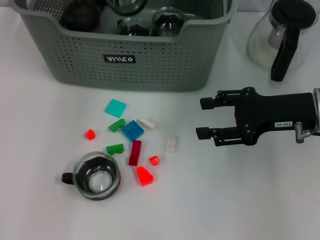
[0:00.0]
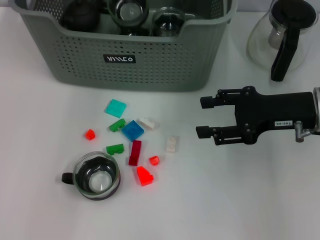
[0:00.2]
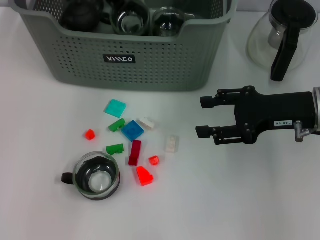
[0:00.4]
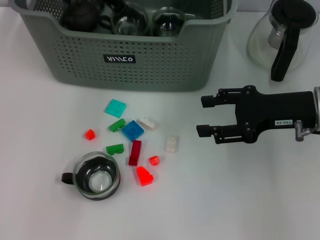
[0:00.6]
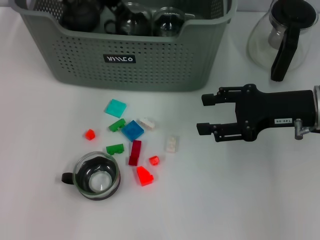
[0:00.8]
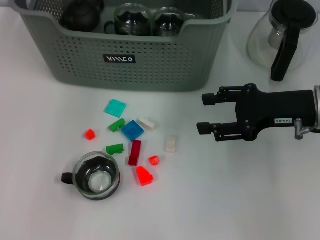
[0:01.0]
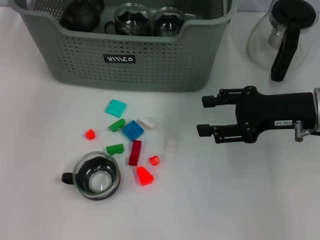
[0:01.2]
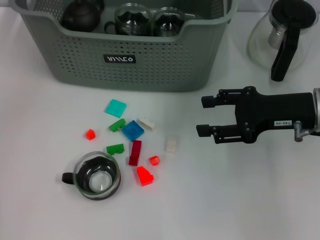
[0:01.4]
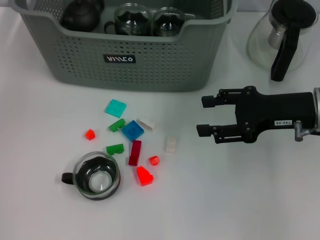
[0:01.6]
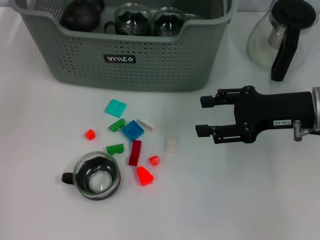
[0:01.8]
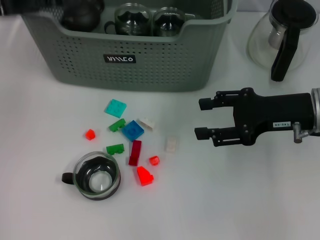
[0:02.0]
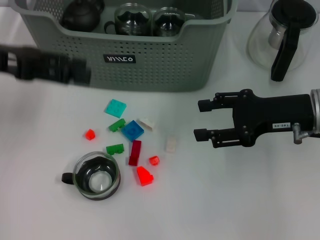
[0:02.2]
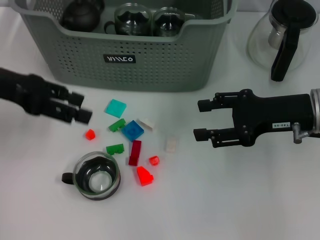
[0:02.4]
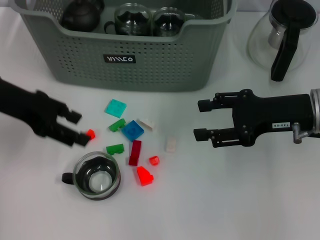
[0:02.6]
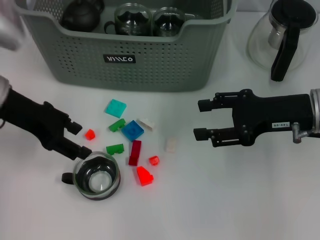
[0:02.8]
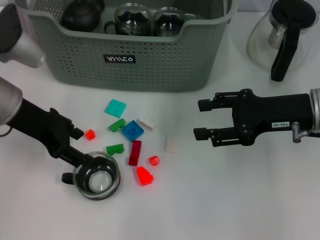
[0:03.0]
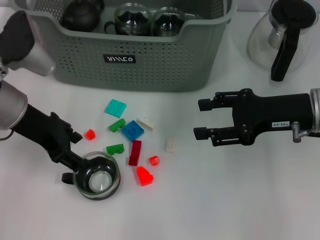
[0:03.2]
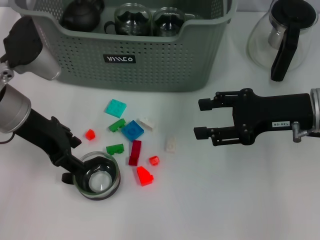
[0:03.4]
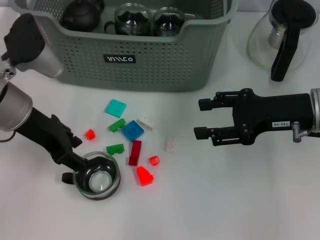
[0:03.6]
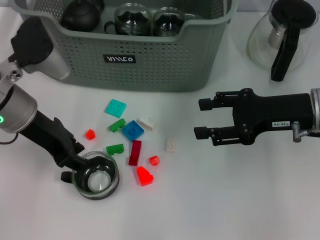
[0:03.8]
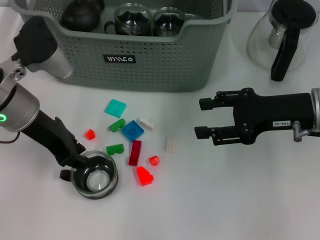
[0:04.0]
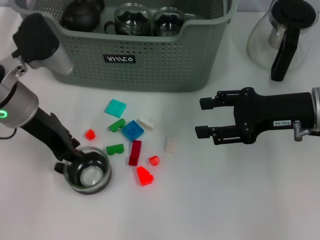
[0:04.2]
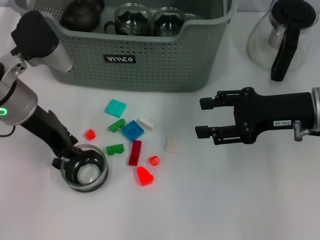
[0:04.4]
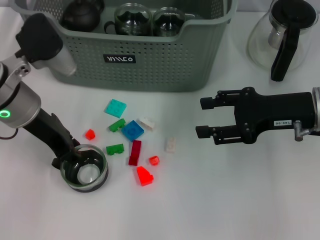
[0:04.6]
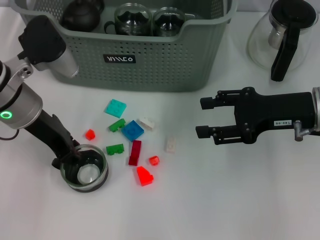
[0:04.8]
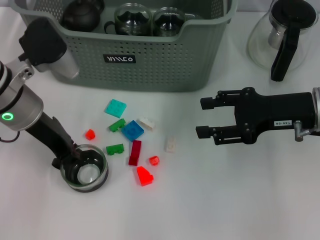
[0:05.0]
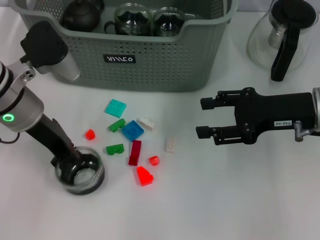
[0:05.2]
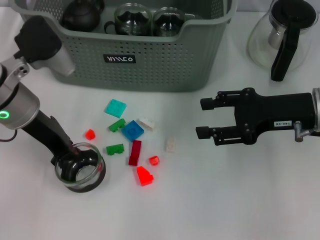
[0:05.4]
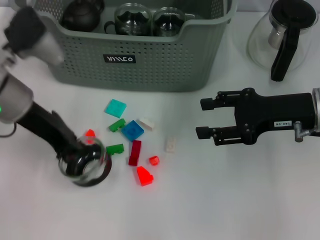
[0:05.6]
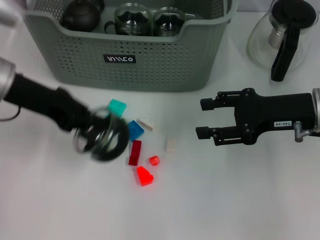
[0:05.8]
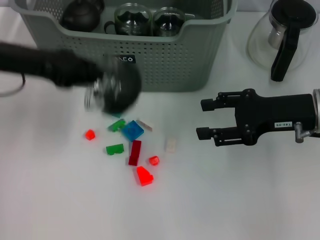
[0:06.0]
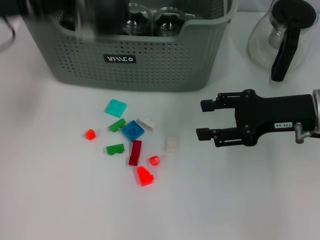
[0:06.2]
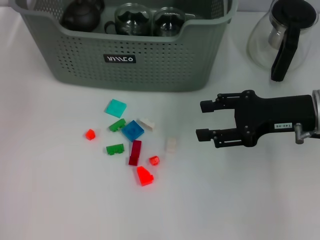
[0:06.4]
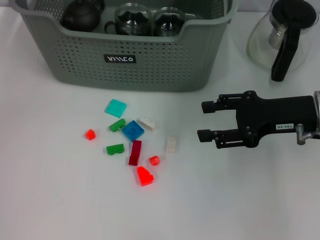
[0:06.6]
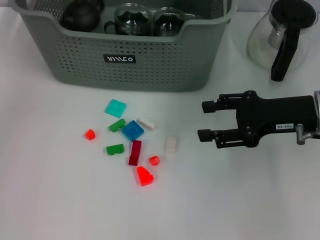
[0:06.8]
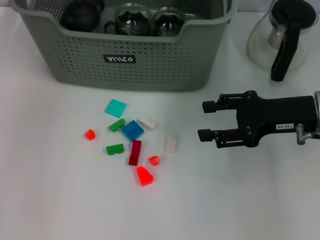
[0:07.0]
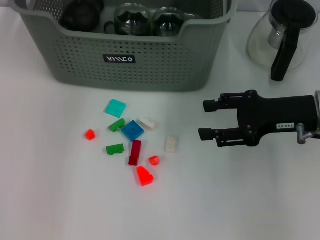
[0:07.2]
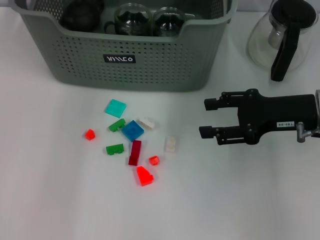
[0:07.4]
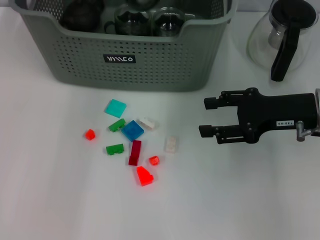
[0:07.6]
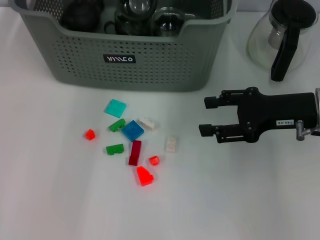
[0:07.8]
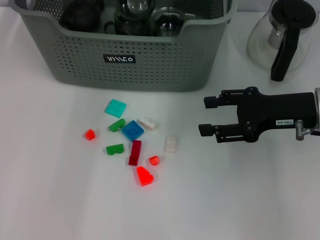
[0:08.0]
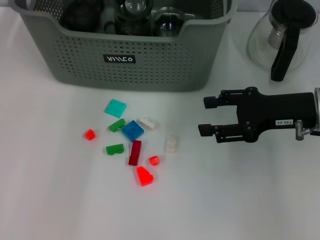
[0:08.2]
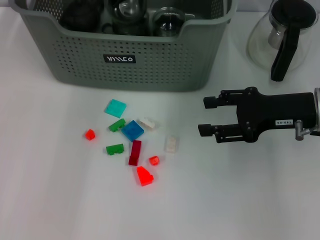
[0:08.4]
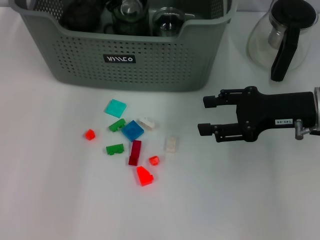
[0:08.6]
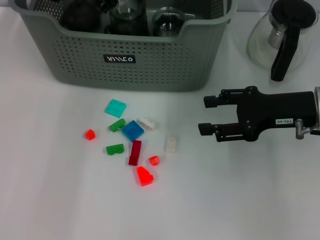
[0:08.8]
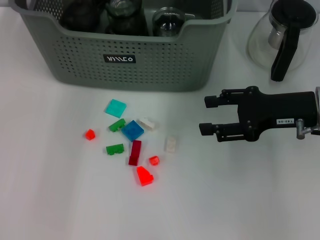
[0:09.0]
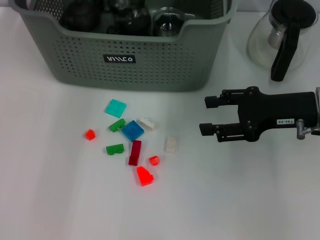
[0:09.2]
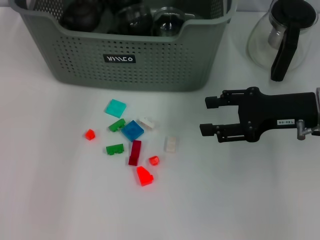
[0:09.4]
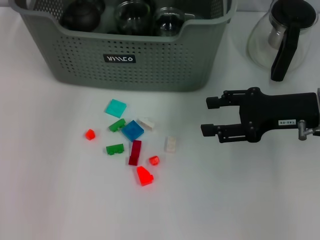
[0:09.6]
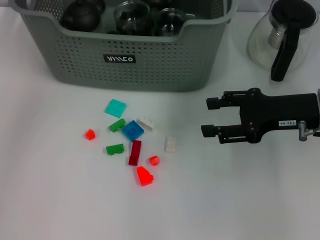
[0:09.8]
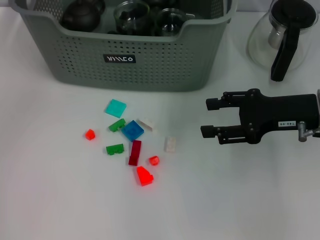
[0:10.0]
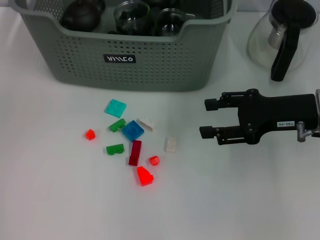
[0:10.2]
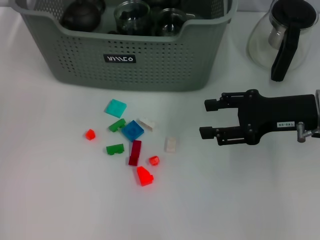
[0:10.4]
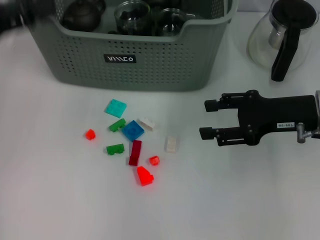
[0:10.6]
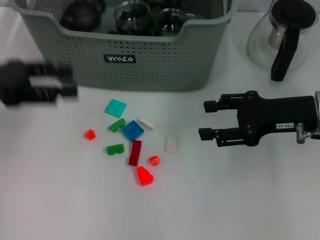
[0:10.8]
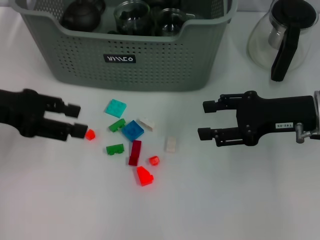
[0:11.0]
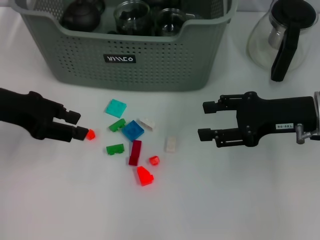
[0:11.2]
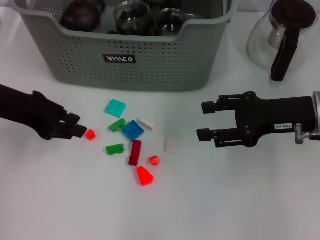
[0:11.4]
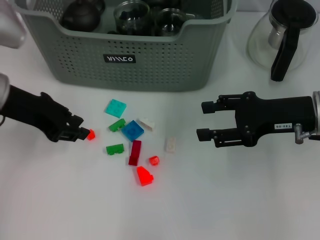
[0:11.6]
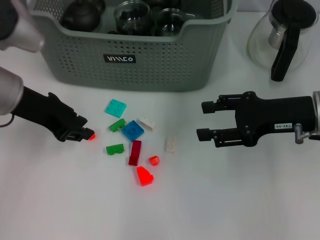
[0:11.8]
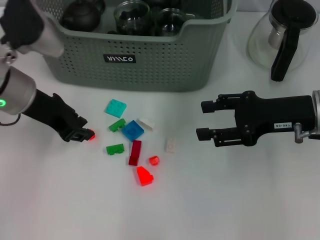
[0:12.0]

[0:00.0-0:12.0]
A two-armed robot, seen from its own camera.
Task of the whole recording: pick up the teacup on the table and place it into the storage bin, pick up the block on the table and place it into the storage bin.
Step, 0:01.2 to 0:05.2: Grasp the cup with left gripper.
Step, 0:05.4 to 0:09.6: Place the cup in the storage box with left gripper.
0:00.0 to 0:01.6: The left gripper travels to the left and backward by about 15 cm, and opens.
0:01.6 to 0:03.0: The left gripper moves downward and backward, approximately 10 cm.
0:03.0 to 0:04.4: The left gripper closes.
0:04.4 to 0:06.0: The left gripper changes place by some 5 cm.
0:06.0 to 0:07.6: The left gripper goes approximately 20 cm forward and to the right.
0:07.6 to 0:09.0: The grippers stay close to where they were, moving slightly.
0:09.0 to 0:10.4: The left gripper heads to the left and backward, covering some 20 cm, and opens.
0:10.4 to 0:12.0: The left gripper travels to the right and downward by approximately 10 cm, and closes up.

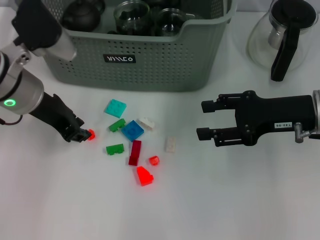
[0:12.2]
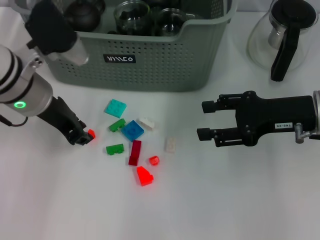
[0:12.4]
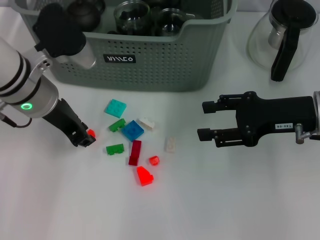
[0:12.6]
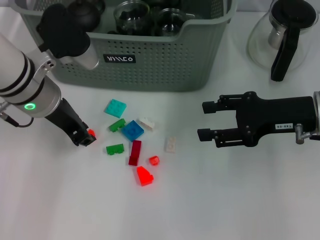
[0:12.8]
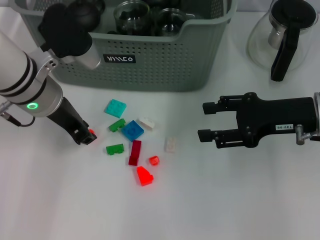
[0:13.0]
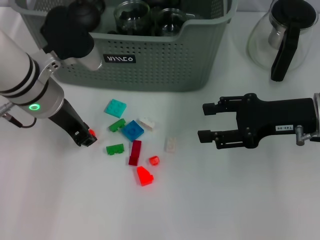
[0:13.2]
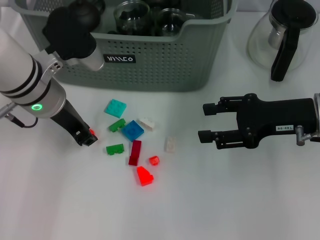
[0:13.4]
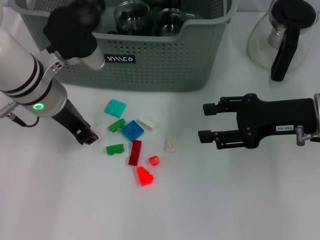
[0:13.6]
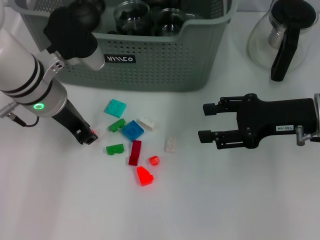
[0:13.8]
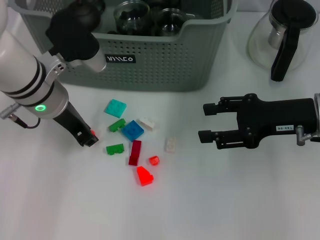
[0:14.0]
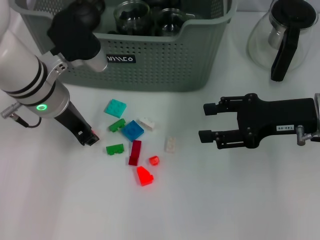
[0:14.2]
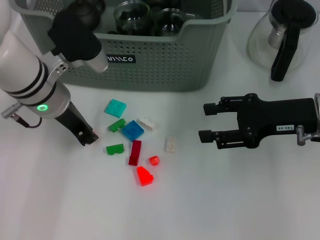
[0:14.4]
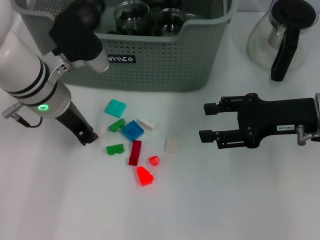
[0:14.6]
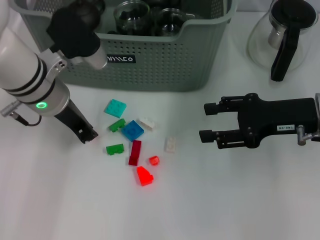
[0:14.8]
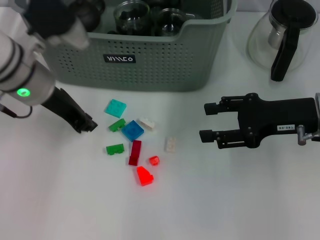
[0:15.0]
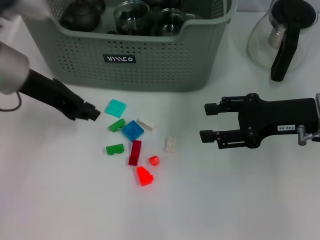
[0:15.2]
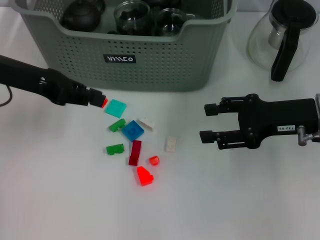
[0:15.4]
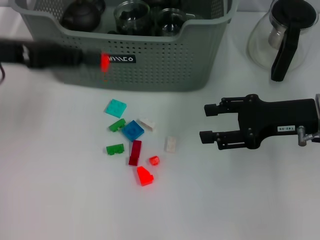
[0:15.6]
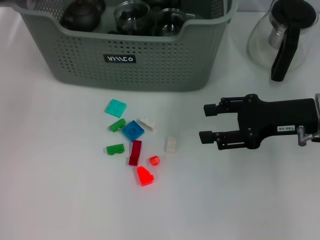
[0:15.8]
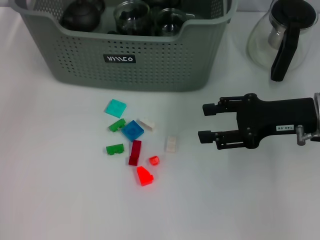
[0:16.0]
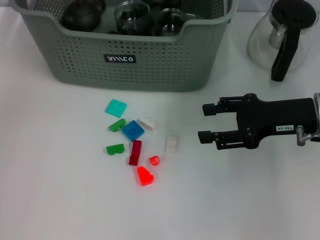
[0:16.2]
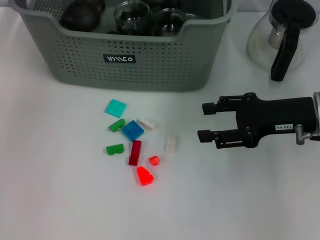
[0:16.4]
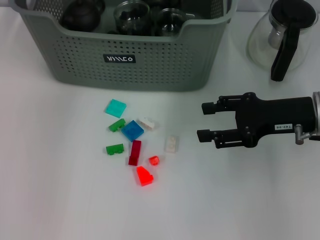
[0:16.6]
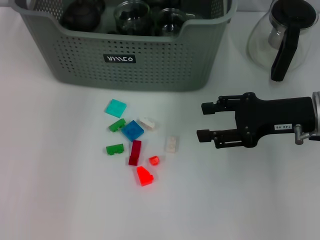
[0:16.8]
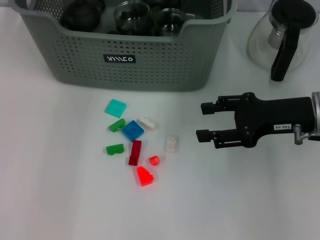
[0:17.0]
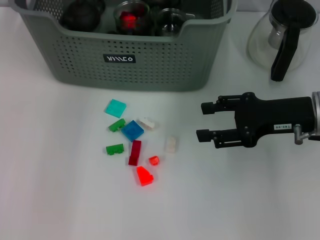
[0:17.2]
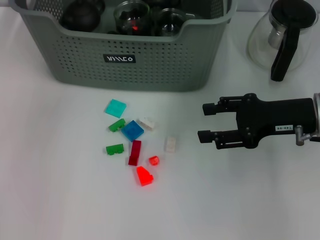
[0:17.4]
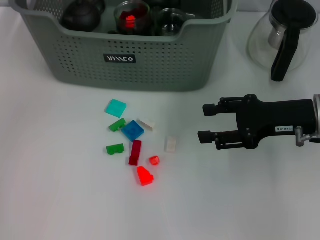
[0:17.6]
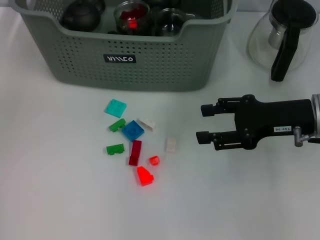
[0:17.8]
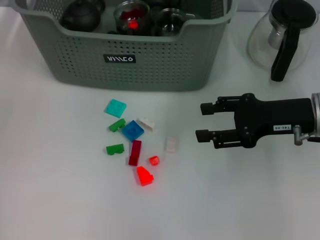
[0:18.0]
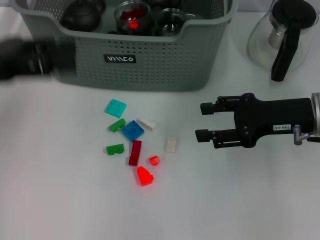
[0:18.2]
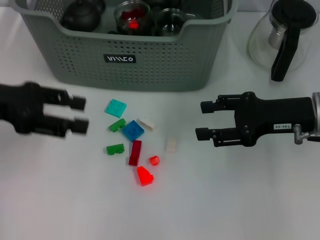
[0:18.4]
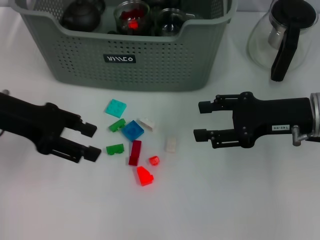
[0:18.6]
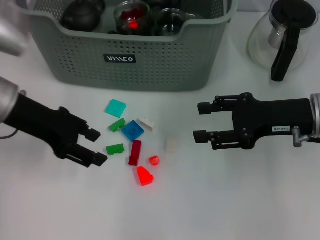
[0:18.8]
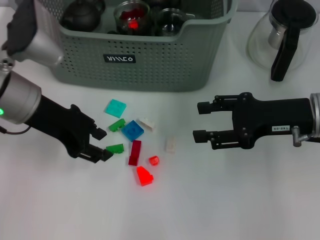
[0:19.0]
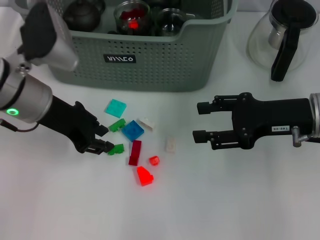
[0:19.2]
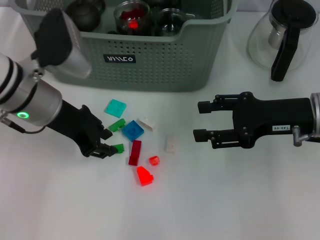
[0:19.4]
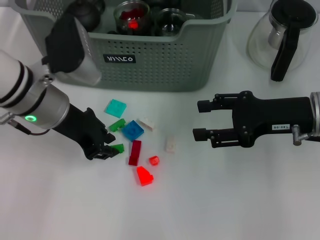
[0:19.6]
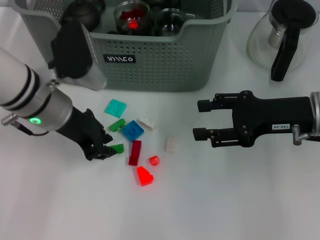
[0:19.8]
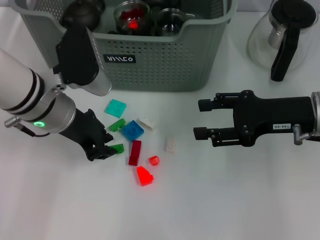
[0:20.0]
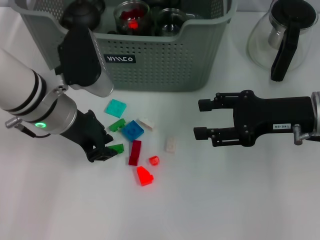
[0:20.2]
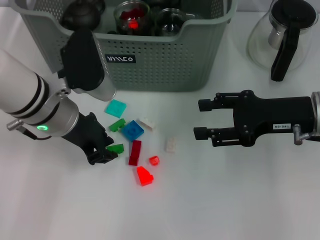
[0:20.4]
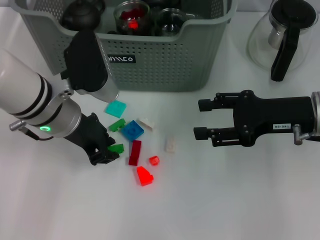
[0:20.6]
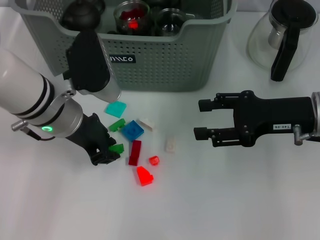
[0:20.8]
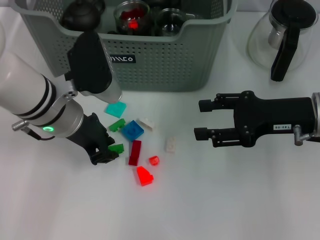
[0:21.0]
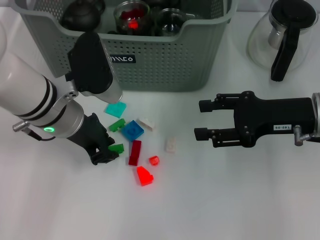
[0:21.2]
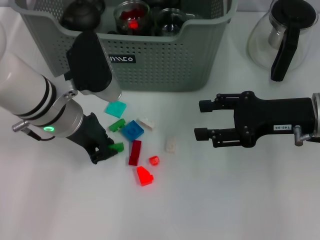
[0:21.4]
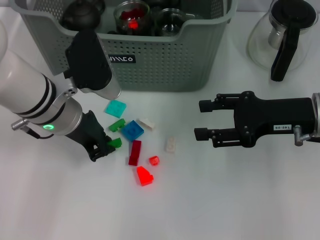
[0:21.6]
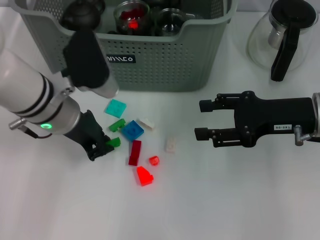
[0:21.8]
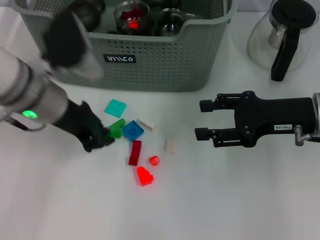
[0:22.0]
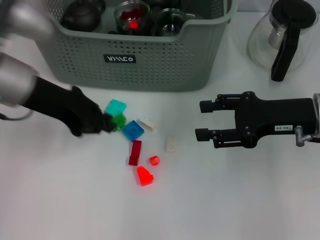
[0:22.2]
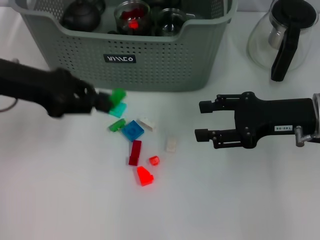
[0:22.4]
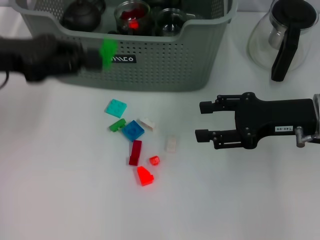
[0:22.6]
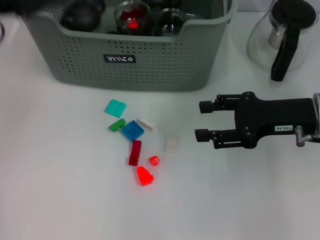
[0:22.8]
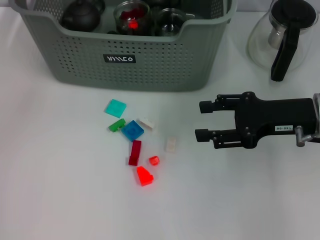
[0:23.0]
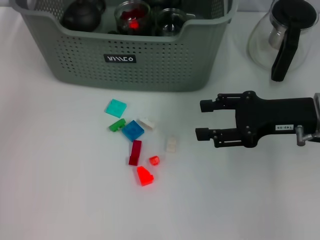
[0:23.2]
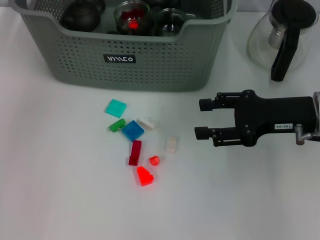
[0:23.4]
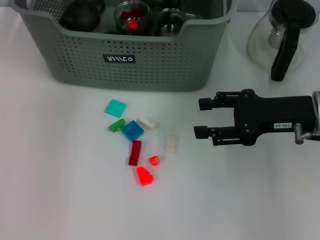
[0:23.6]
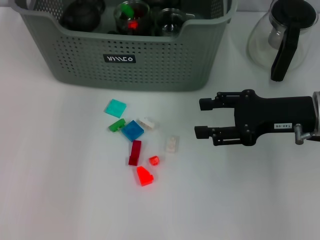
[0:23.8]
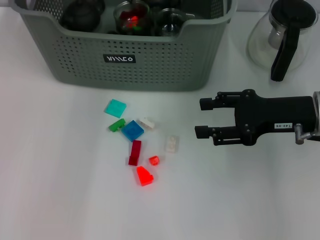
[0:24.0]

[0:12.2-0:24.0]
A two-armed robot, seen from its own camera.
Task of the whole recording: pick up the teacup on the table and place it into the storage bin, pick up the block on the table and place it into the storage bin.
Step, 0:12.2 to 0:14.6: Grasp the orange block with left gripper.
Step, 0:14.8 to 0:17.6: Place the orange block in the storage box with left gripper.
Step, 0:17.8 to 0:21.4: Grasp the green block with left gripper.
Step, 0:21.6 to 0:23.8: Place the green block in the storage box with left gripper.
0:12.2 to 0:13.6: The grippers move only a little.
0:13.6 to 0:15.2: The left gripper travels to the left by roughly 5 cm.
0:15.2 to 0:16.6: The left gripper travels forward, upward and to the right by approximately 15 cm.
0:16.6 to 0:18.2: The left gripper is displaced backward and to the left by approximately 25 cm, and opens its fingers.
0:18.2 to 0:19.6: The left gripper goes roughly 15 cm to the right and downward, and closes.
0:19.6 to 0:21.0: The grippers move only a little.
0:21.0 to 0:22.6: The left gripper is displaced to the left and upward by roughly 15 cm.
0:22.6 to 0:24.0: The left gripper is displaced to the right and forward by approximately 20 cm.
